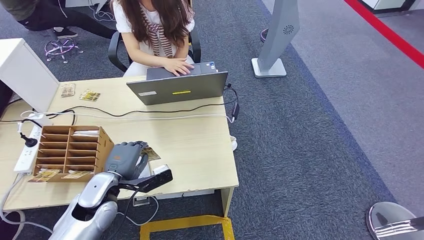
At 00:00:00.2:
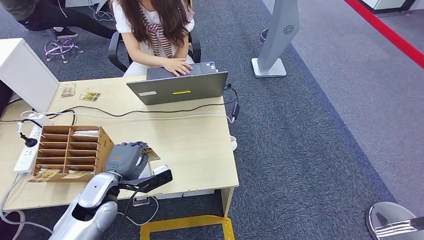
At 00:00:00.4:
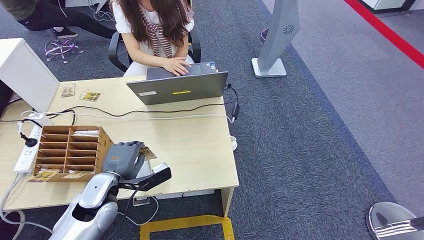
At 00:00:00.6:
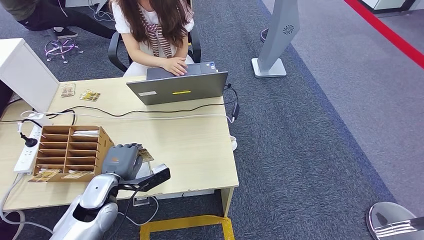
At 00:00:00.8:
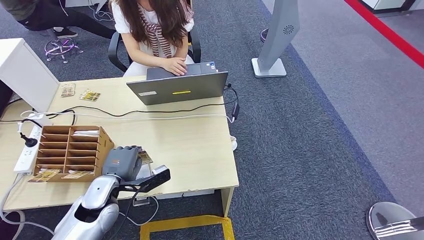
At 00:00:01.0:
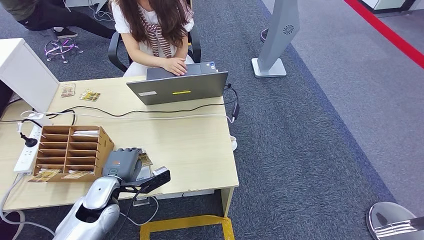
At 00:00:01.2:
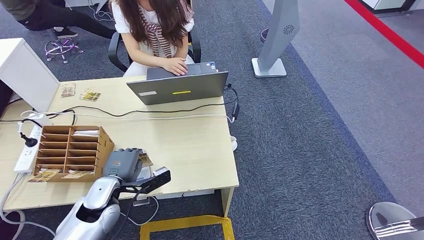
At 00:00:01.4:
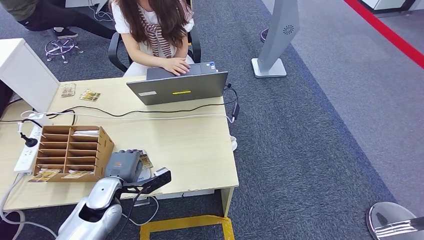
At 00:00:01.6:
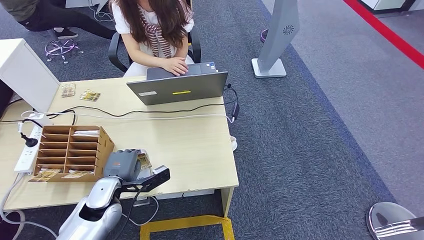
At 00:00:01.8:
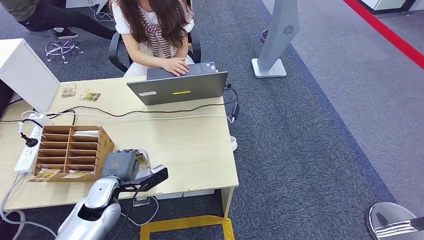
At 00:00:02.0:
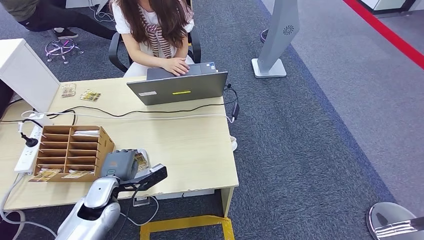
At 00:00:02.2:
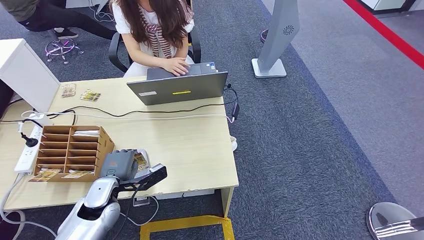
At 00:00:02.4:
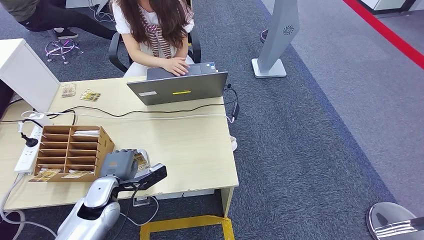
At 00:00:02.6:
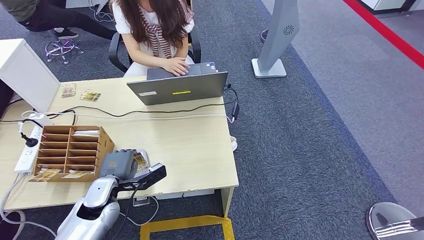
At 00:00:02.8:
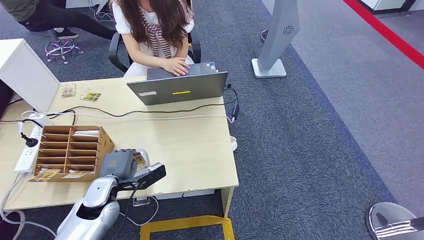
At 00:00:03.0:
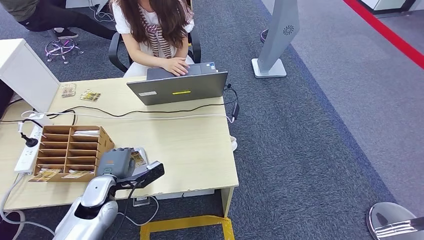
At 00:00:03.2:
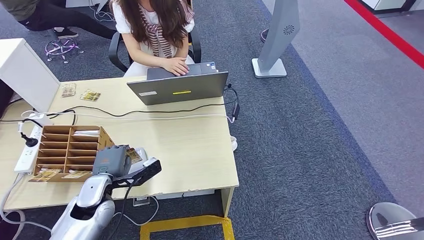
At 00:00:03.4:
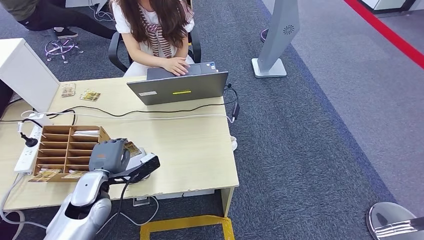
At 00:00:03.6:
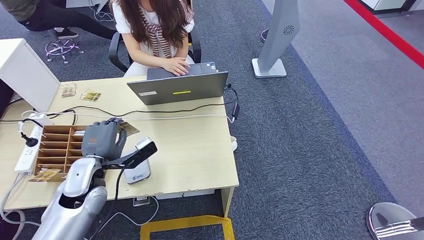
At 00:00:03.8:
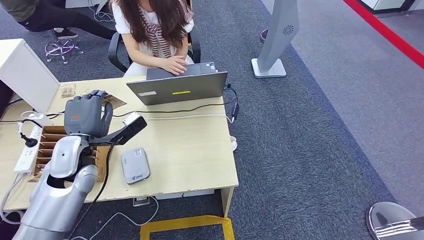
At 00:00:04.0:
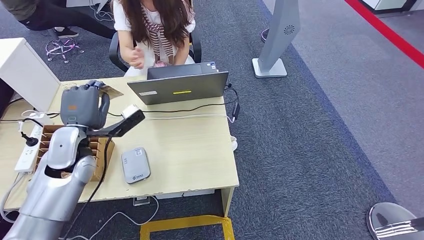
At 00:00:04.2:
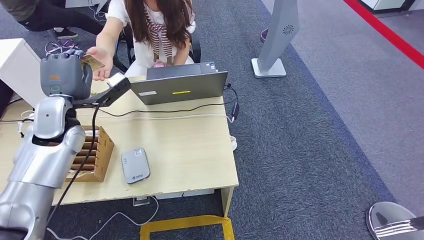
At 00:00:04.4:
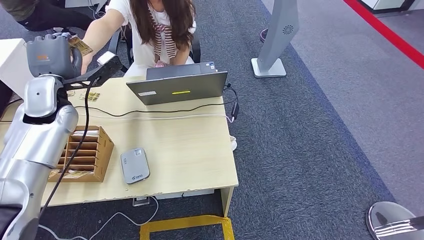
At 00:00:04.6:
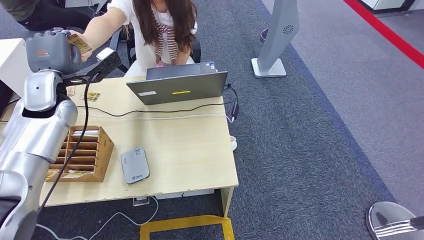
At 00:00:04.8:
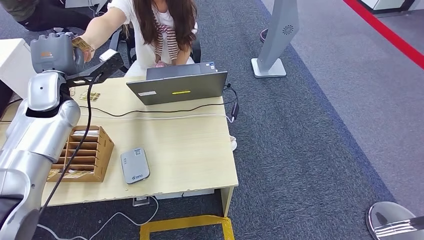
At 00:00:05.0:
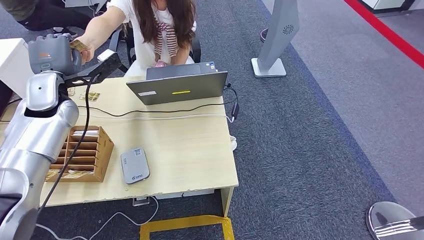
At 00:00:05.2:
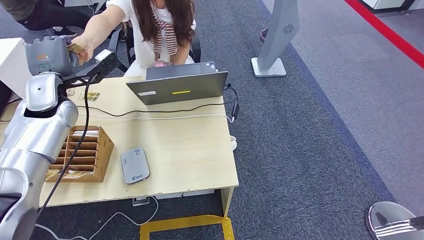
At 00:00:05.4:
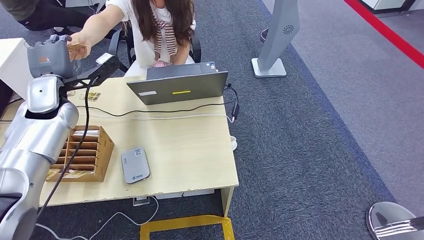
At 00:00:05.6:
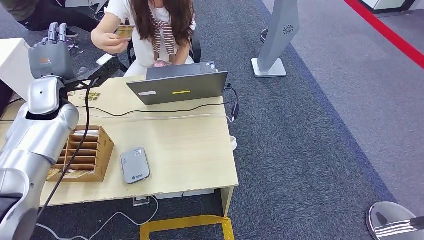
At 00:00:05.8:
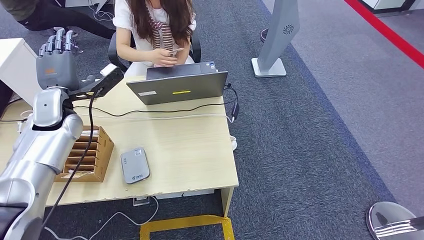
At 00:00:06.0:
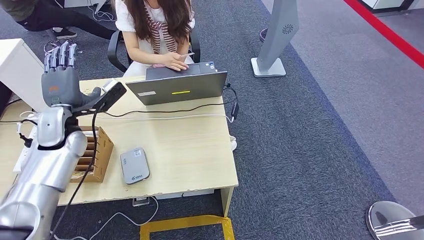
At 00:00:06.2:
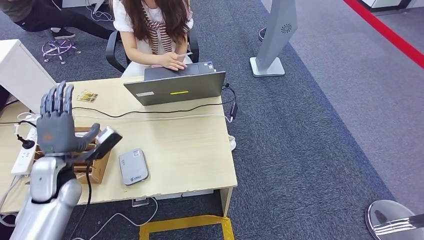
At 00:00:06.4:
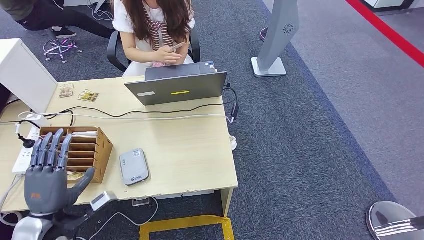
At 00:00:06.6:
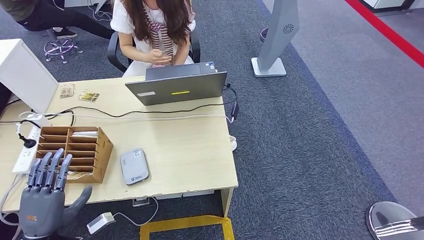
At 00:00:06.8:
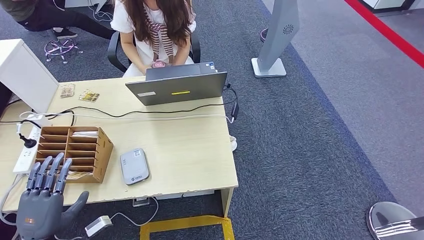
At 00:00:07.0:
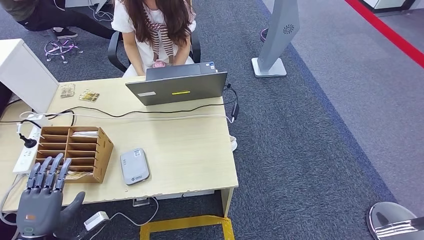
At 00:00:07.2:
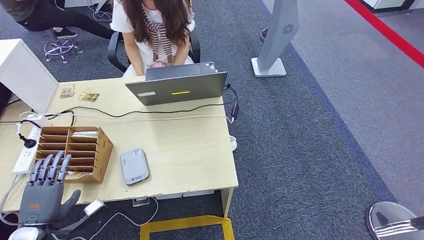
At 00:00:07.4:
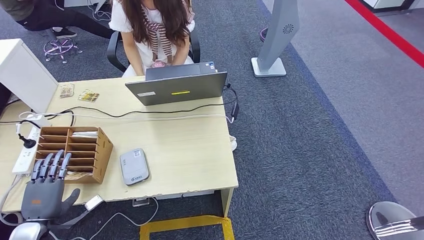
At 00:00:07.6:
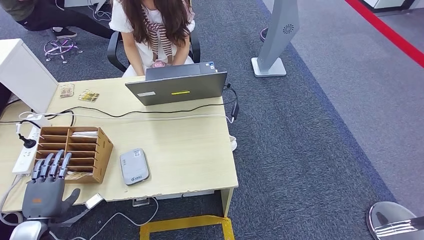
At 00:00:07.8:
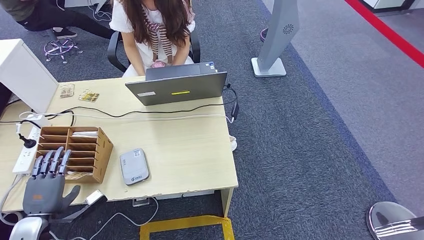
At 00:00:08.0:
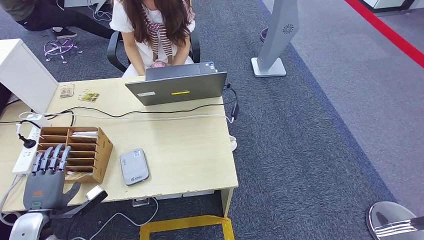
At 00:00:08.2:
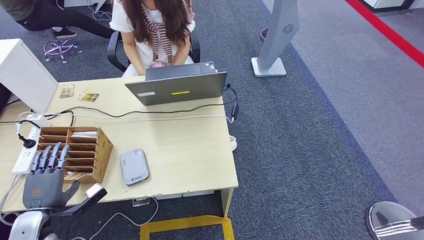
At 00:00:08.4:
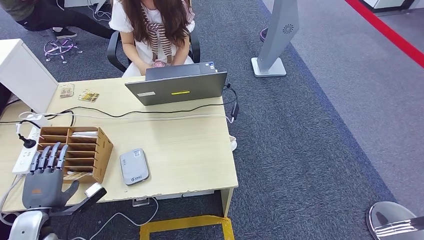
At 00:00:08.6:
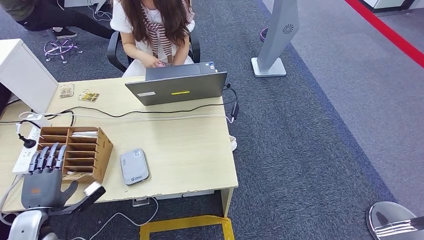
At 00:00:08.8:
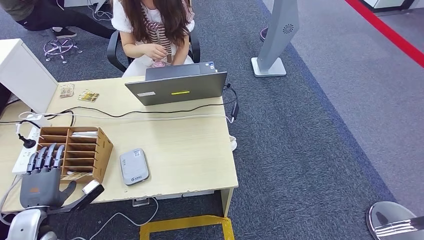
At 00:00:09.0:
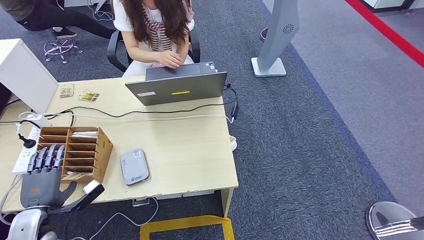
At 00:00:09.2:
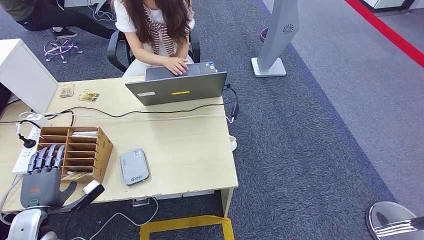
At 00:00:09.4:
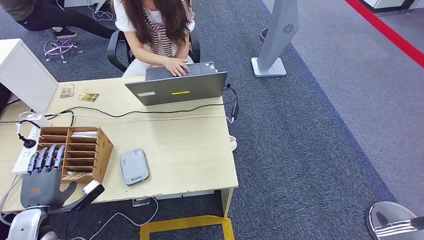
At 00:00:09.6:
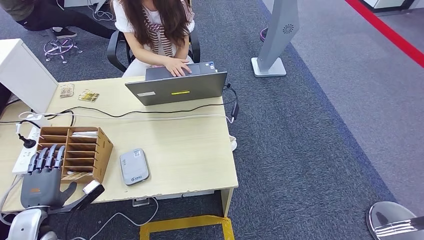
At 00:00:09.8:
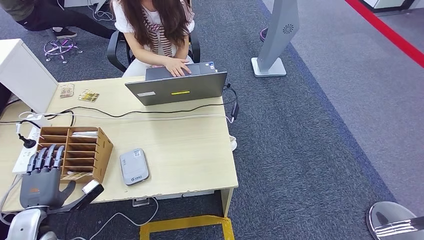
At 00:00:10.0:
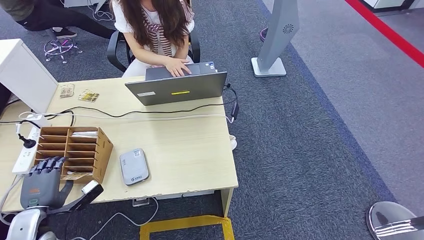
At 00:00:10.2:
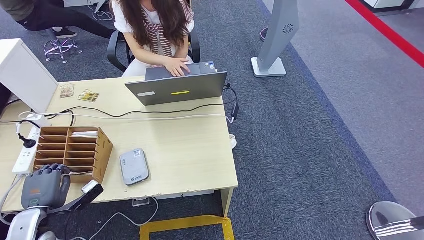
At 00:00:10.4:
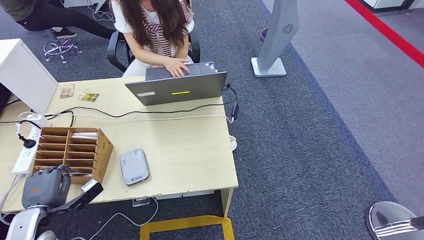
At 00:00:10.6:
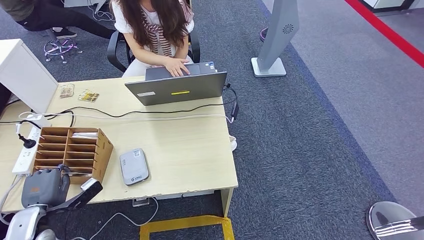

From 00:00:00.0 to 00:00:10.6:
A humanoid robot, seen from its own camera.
Step, from 00:00:00.8 to 00:00:05.0: Hand the ID card to the person.
From 00:00:00.0 to 00:00:01.6: The hands make only small movements.
From 00:00:01.6 to 00:00:03.0: Neither hand changes place.
From 00:00:03.0 to 00:00:04.6: The left hand is displaced upward and forward by roughly 30 cm.
From 00:00:04.6 to 00:00:06.0: The left hand travels downward by about 10 cm.
From 00:00:06.0 to 00:00:07.6: The left hand travels backward, downward and to the left by about 30 cm.
From 00:00:07.6 to 00:00:10.6: The hands move only a little.

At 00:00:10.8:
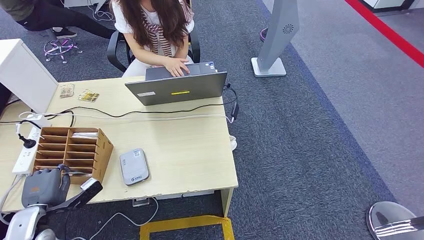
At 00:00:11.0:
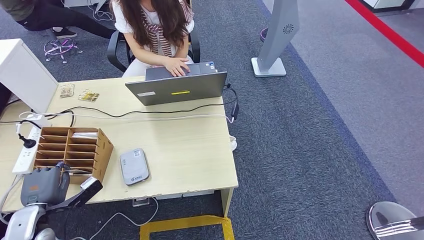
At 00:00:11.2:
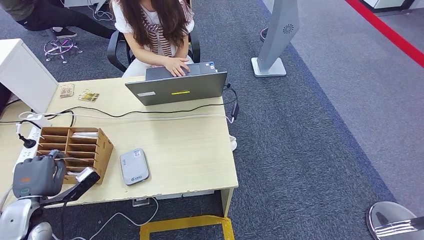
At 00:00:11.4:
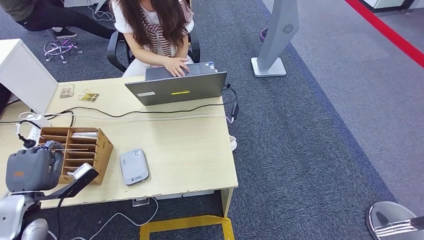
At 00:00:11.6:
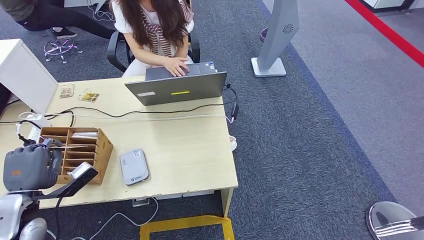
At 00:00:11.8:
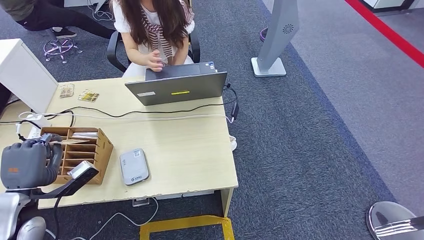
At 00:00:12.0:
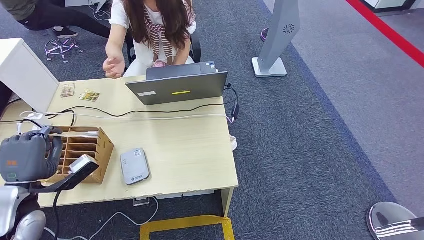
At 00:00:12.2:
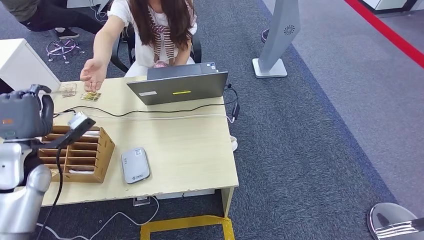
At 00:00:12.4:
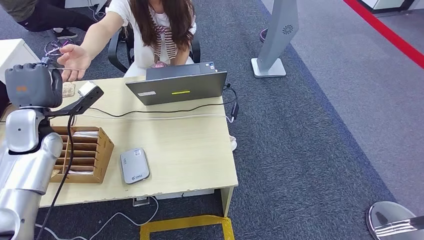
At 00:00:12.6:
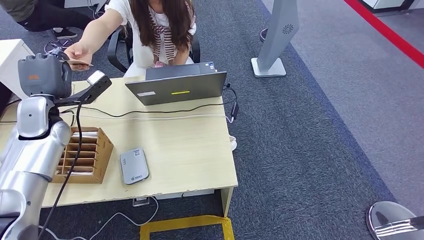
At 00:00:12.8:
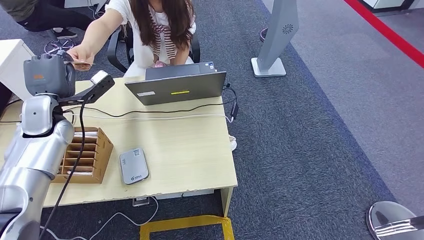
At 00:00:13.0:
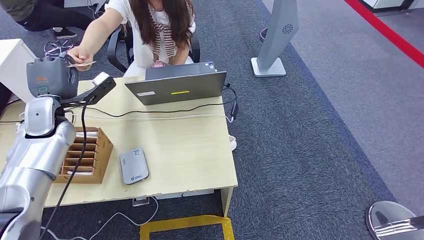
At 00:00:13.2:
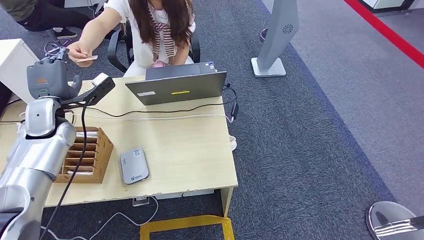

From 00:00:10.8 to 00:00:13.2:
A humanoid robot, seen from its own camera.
Step, from 00:00:12.0 to 00:00:13.2: Hand the room key to the person.
From 00:00:10.8 to 00:00:12.0: The left hand is displaced upward by approximately 10 cm.
From 00:00:12.0 to 00:00:13.2: The left hand goes some 20 cm forward and upward.
